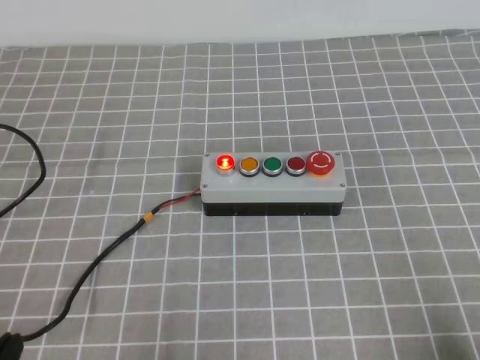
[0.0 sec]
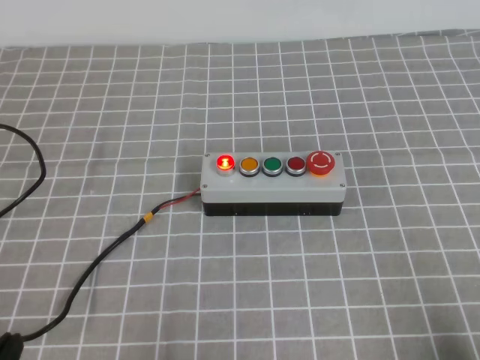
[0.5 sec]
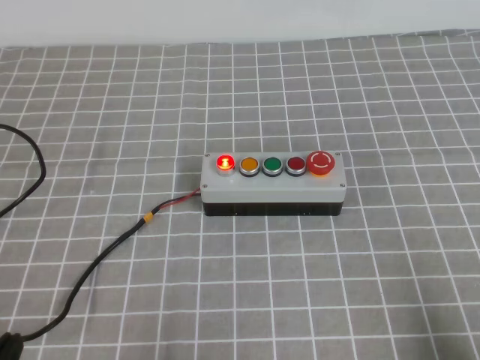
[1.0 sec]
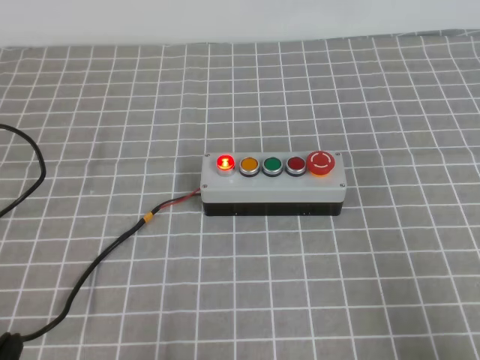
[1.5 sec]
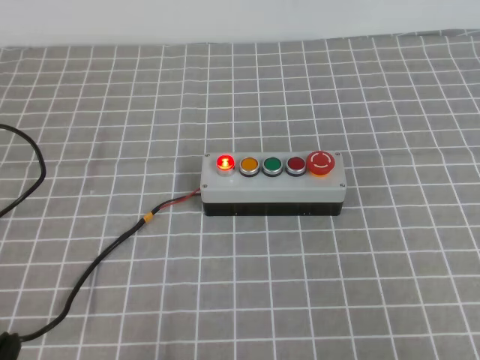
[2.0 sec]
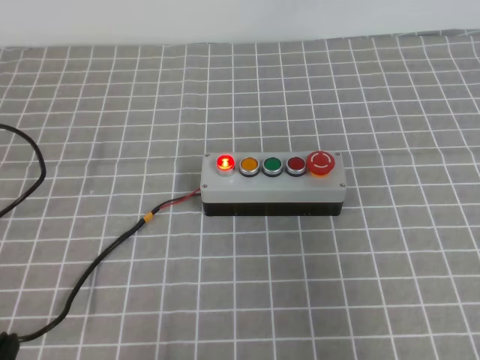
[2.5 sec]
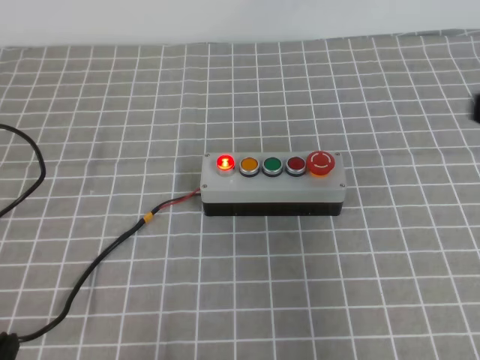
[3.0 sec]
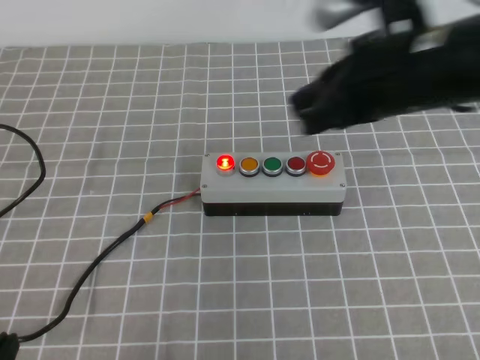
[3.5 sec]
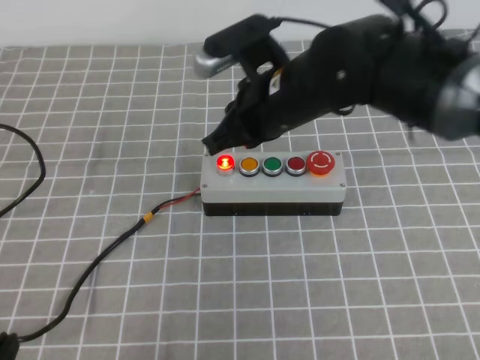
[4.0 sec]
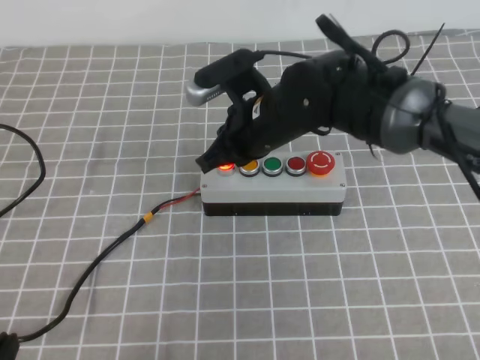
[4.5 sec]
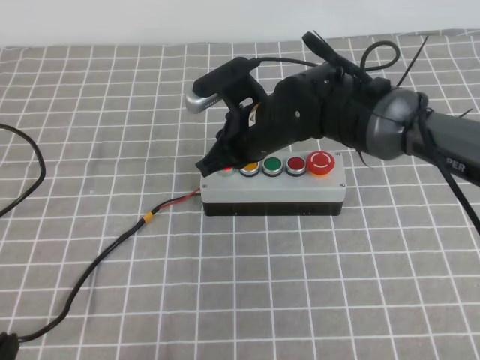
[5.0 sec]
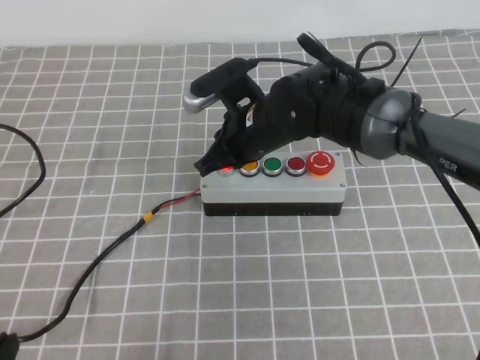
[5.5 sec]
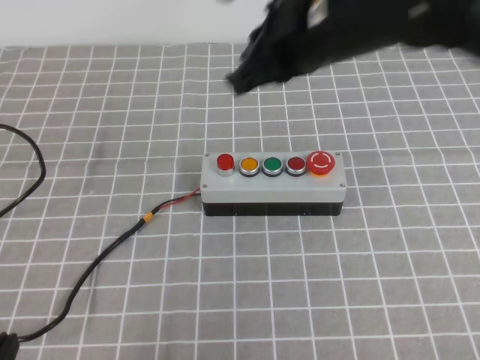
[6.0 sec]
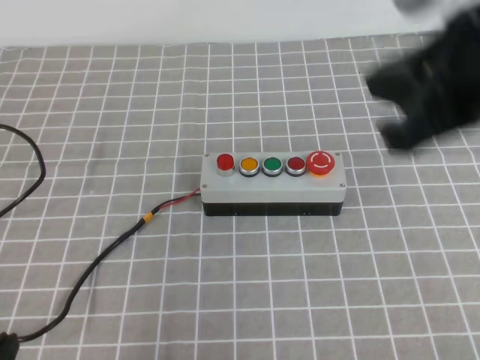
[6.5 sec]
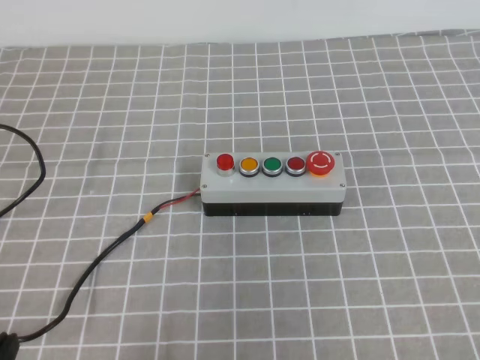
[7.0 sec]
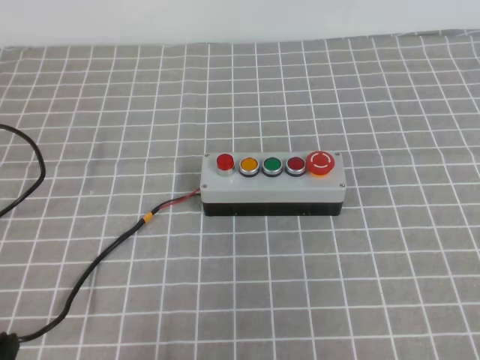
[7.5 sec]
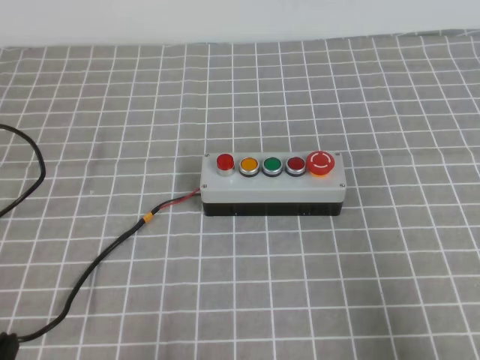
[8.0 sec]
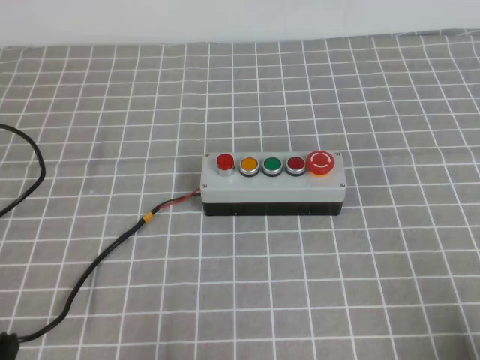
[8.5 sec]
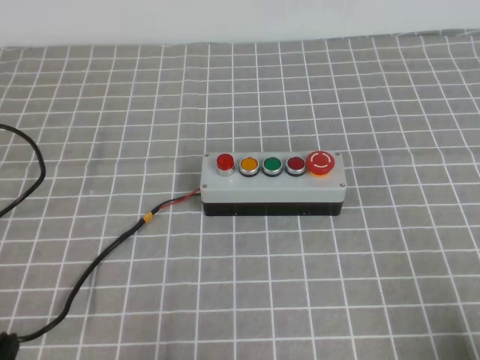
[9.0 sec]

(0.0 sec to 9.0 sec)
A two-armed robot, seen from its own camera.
Task of the whole recording: press the button switch on the grey tablecloth with the right gripper to turn off the button.
Step, 0.0 sec - 9.0 sec: Press the button to turn off.
2.0 sec - 4.5 sec: The right gripper goes some 50 cm forward and to the left.
4.5 sec - 7.0 sec: The right gripper travels backward, to the right and upward by some 35 cm.
7.0 sec - 9.0 sec: The right gripper goes roughly 20 cm downward and to the right.
